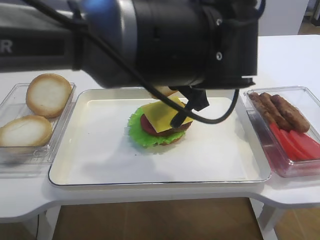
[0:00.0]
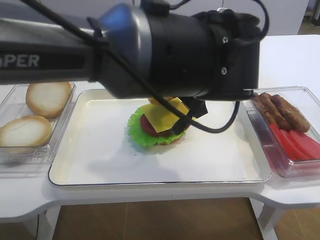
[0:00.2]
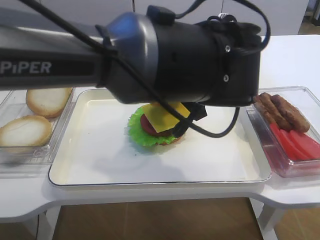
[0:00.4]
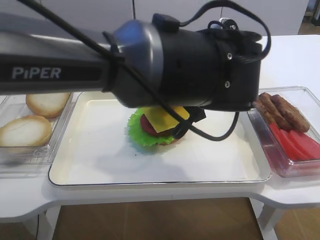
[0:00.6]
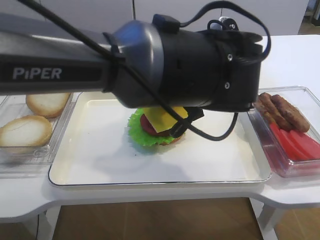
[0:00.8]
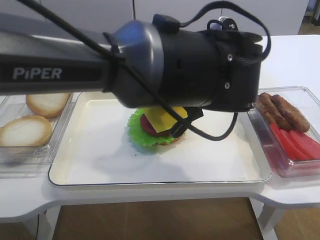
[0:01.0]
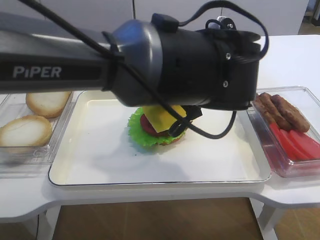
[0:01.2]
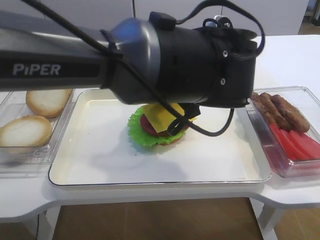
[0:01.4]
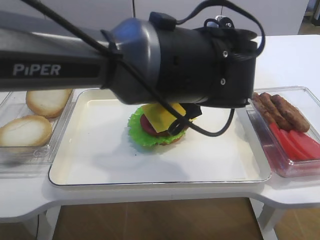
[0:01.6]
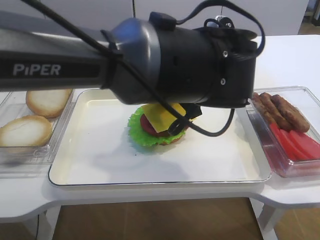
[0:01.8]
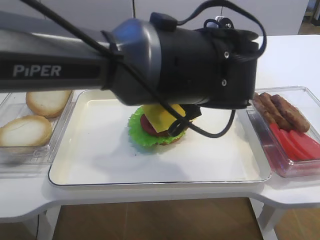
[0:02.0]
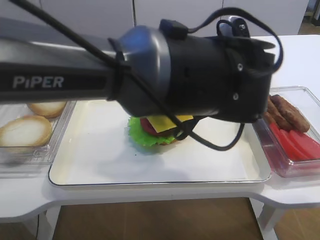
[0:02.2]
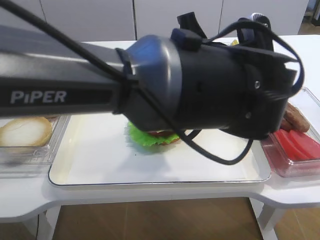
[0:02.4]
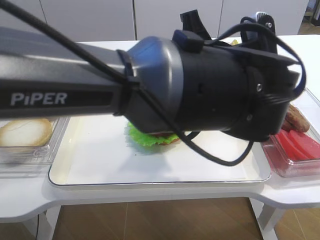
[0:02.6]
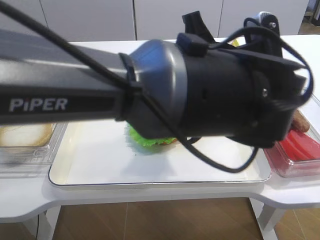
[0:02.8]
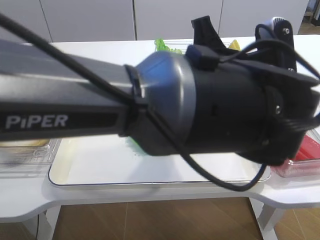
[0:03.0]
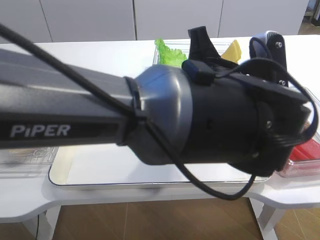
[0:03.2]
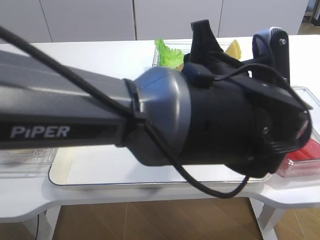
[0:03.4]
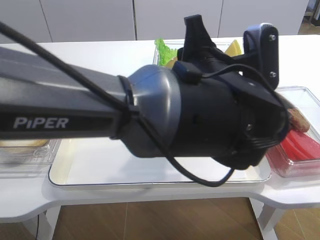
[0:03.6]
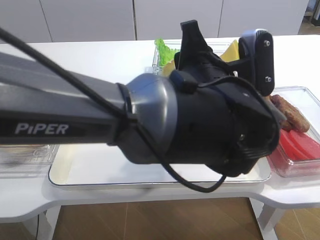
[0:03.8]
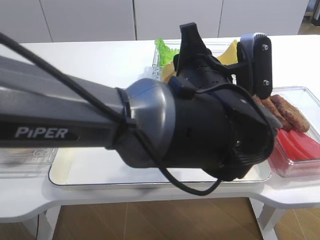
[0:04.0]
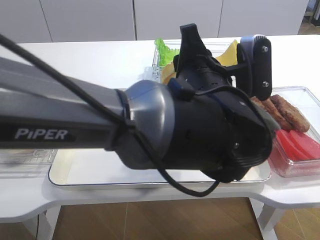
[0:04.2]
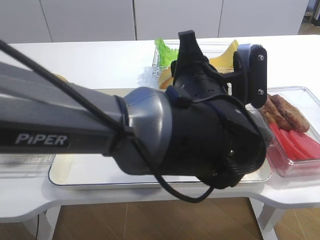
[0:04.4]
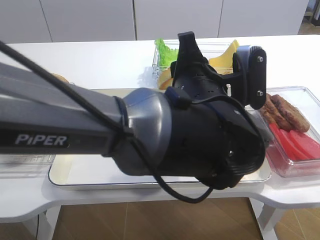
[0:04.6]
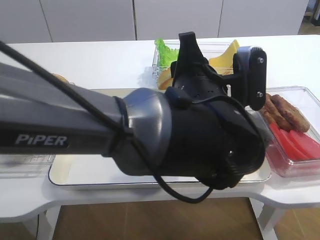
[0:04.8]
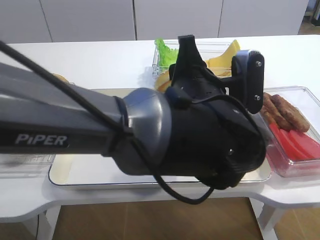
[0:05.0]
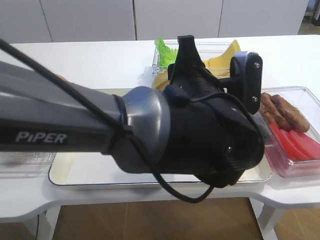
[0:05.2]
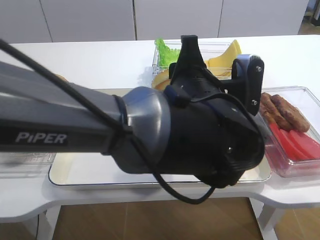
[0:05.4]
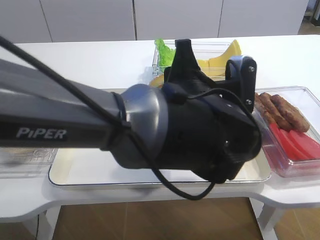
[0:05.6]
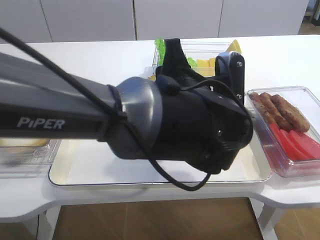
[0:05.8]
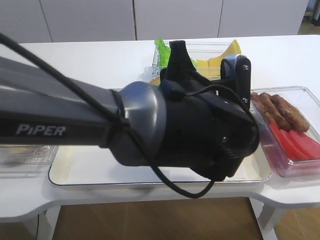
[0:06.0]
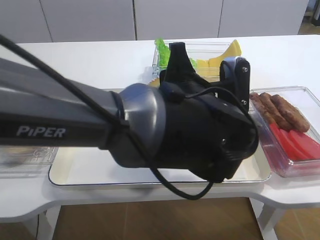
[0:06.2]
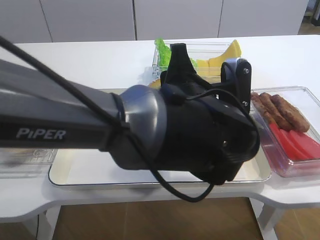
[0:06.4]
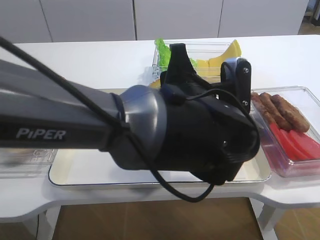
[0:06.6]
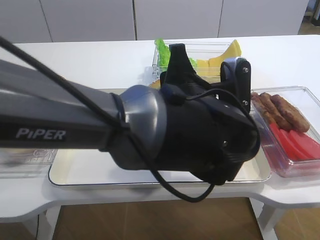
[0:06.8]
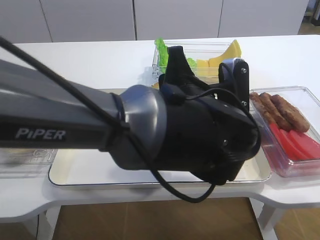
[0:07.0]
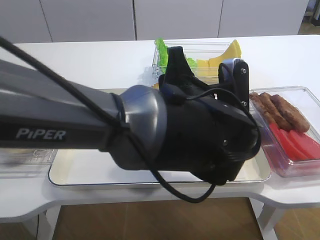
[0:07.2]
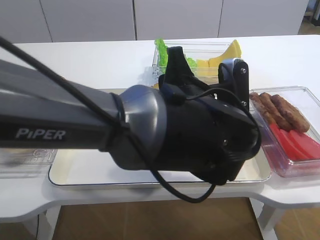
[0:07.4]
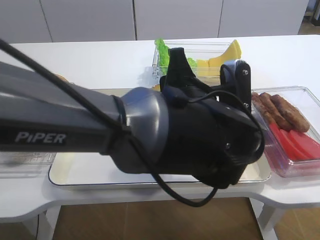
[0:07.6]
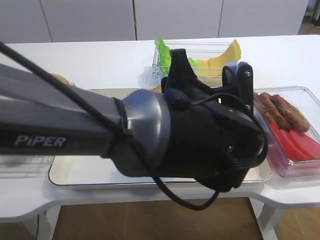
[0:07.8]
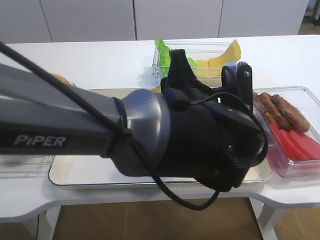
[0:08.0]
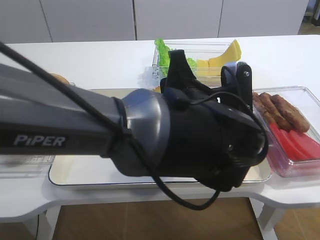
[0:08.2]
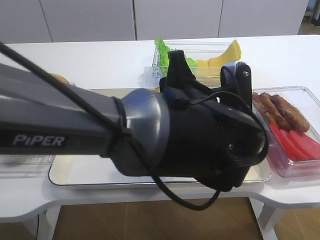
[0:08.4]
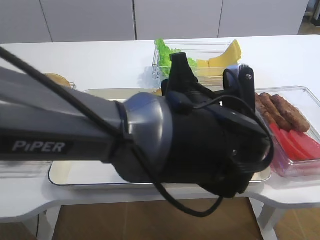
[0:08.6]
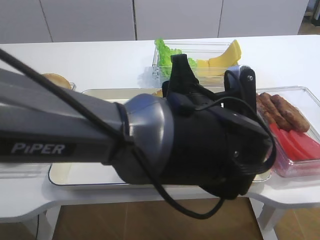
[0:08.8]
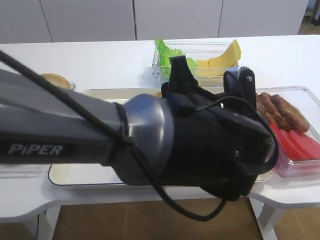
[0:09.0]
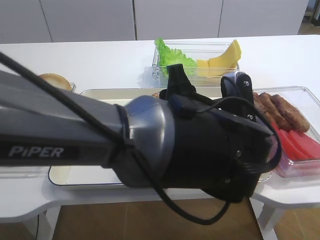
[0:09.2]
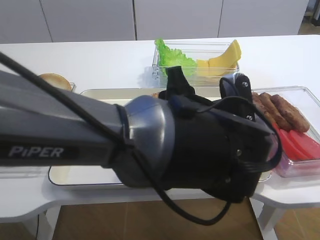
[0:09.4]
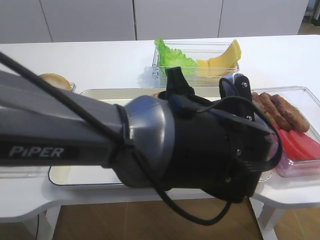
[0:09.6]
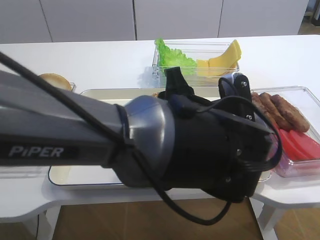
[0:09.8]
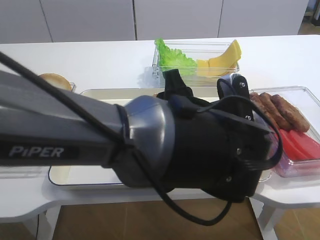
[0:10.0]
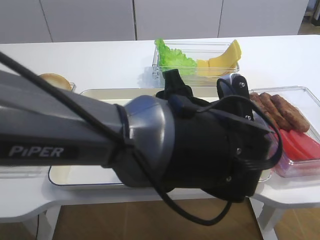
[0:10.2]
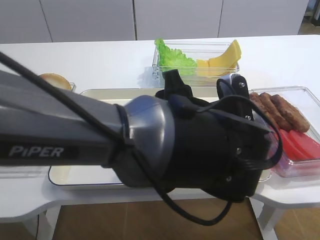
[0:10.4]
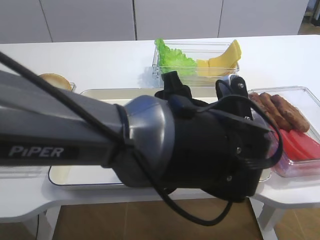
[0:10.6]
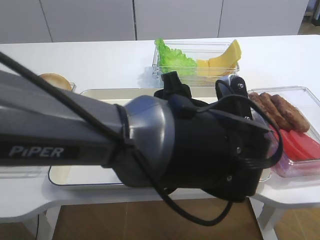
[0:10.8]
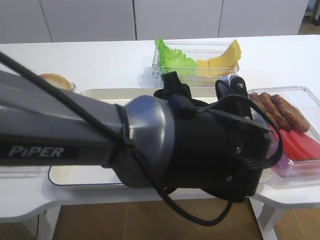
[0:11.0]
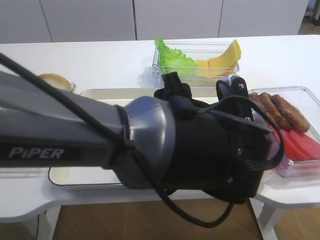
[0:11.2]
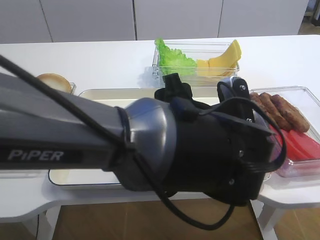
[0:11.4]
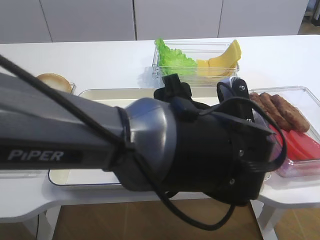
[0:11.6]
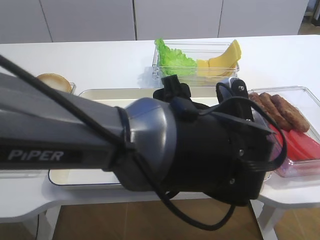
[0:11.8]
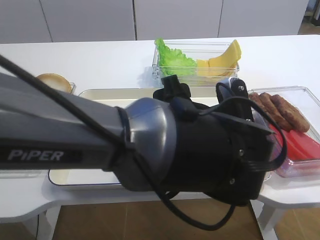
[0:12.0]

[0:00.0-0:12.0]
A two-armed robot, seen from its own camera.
0:01.6 to 0:03.0: The left gripper moves approximately 5 cm.
0:06.0 to 0:07.6: Both grippers stay put.
0:07.6 to 0:09.0: Both grippers stay put.
0:09.0 to 0:10.4: The left gripper opens its fingers.
0:10.4 to 0:12.0: The left gripper opens up.

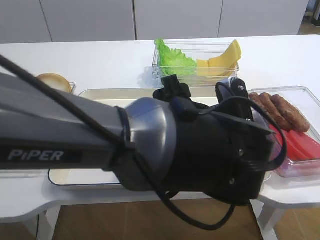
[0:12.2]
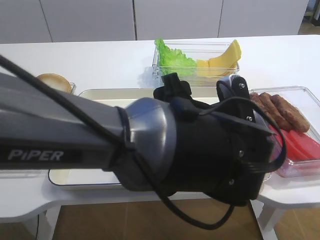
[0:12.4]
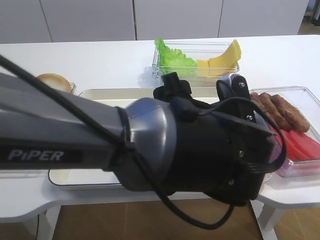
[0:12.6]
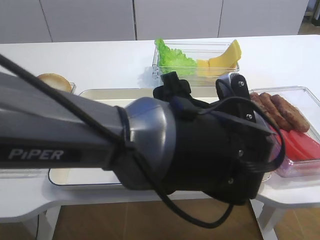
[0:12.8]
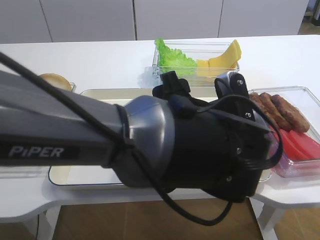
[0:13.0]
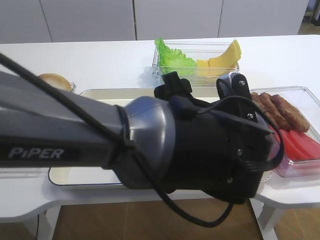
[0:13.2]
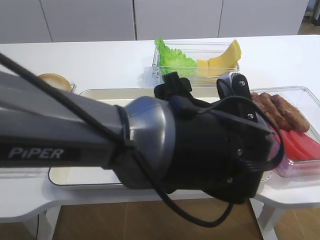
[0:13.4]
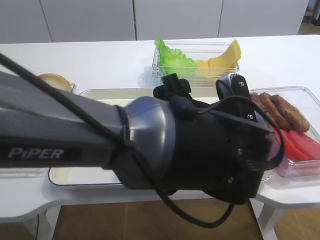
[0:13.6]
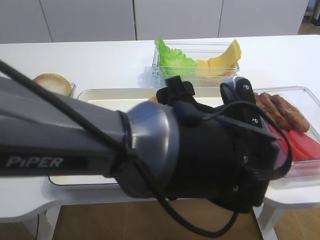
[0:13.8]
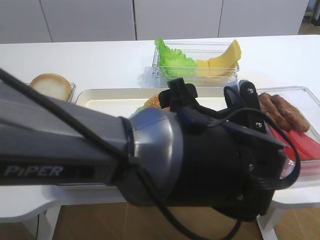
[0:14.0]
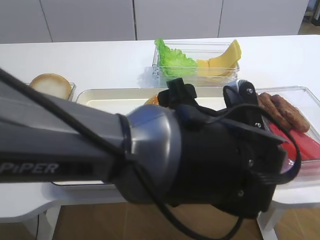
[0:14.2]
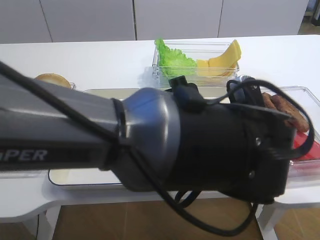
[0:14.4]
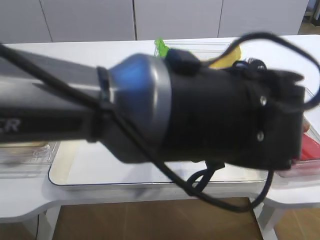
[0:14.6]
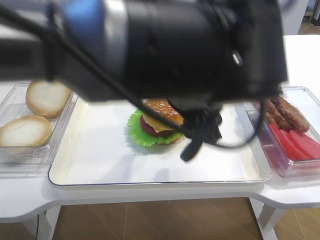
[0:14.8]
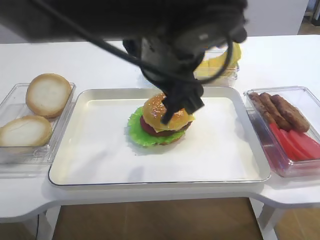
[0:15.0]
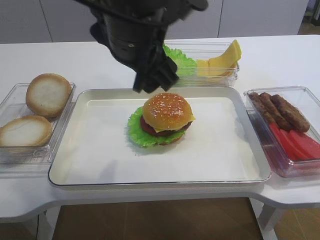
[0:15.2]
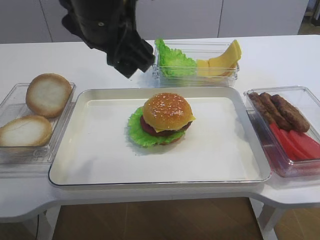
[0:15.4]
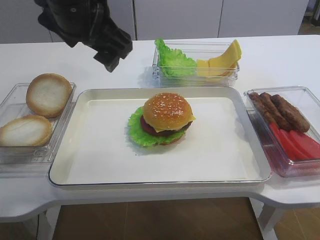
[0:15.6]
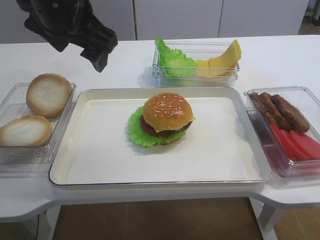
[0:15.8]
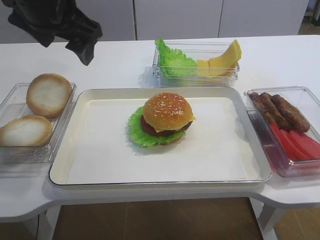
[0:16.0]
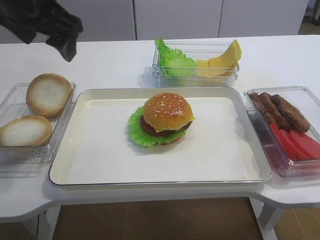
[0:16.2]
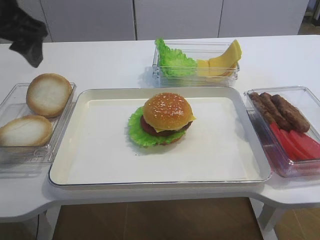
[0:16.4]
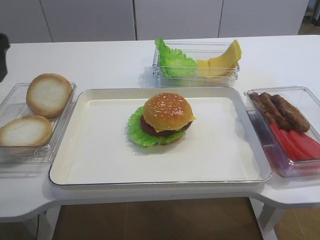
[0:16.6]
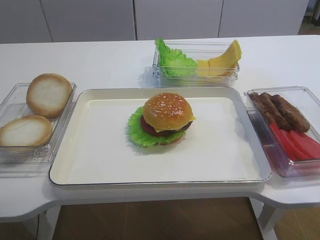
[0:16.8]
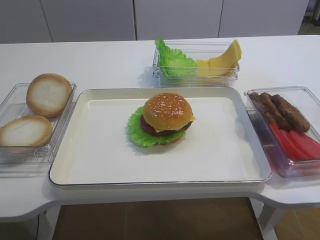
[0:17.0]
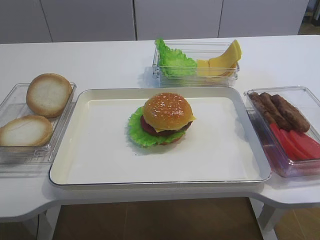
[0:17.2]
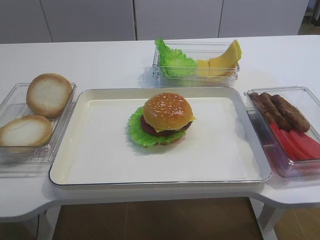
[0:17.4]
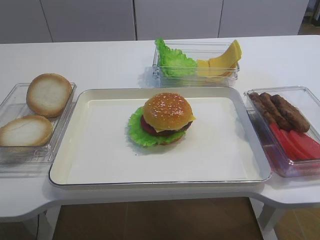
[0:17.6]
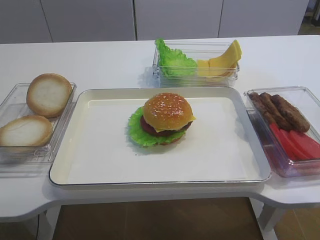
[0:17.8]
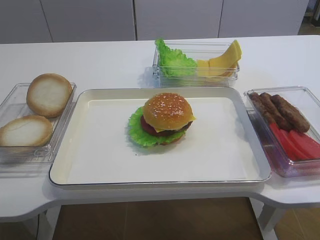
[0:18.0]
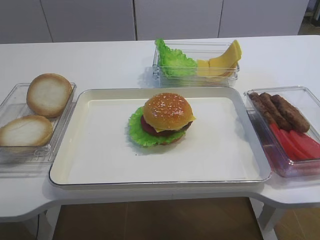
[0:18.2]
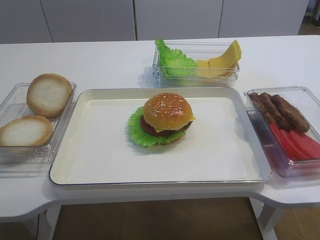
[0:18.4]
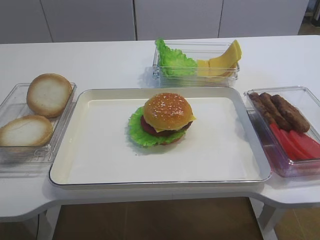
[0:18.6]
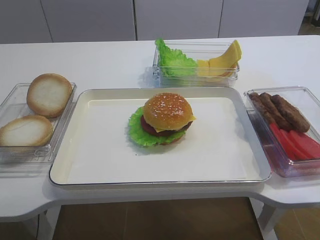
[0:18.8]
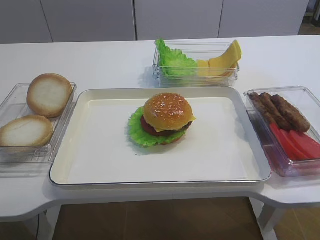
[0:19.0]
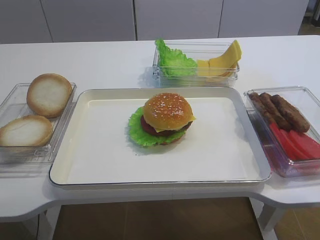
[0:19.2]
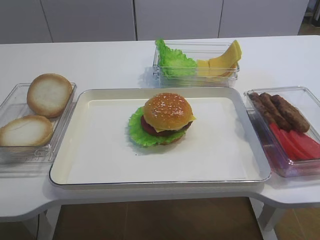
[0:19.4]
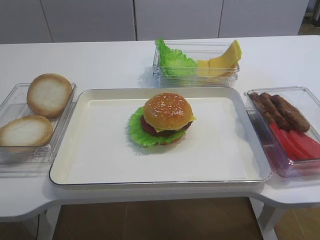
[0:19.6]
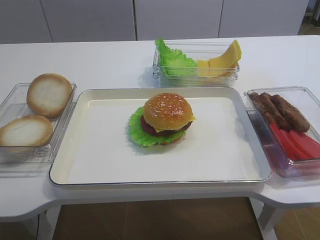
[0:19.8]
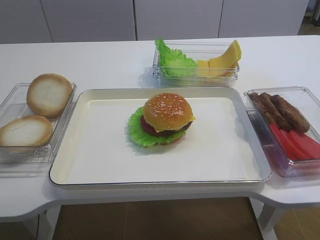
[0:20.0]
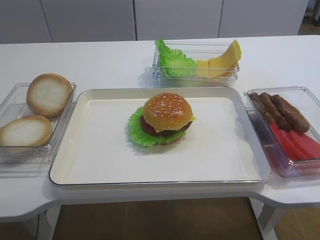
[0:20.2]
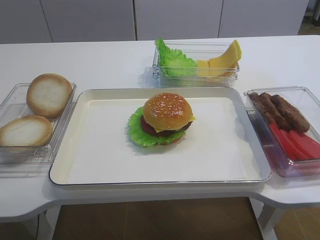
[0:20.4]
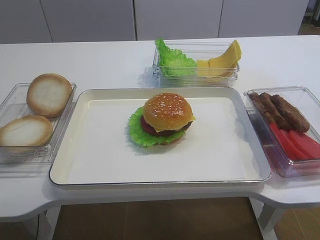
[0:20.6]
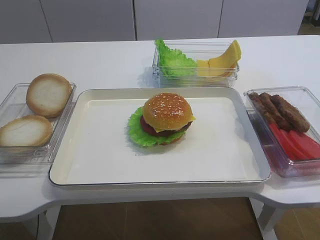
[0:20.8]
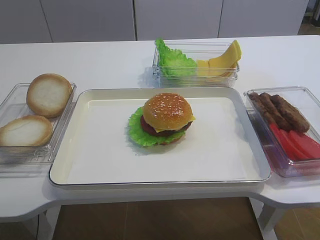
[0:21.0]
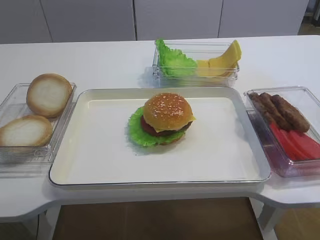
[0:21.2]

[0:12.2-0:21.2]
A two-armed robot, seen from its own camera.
Step, 0:12.2 to 0:14.8: Place the hamburger lid on the cheese slice with the left gripper.
0:12.2 to 0:13.8: Both grippers stay about where they are.
0:13.8 to 0:15.2: The left gripper travels upward and to the left by roughly 15 cm.
0:15.2 to 0:16.6: The left gripper shifts approximately 20 cm to the left.
0:19.8 to 0:21.2: The two grippers keep their place.

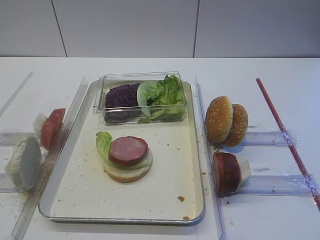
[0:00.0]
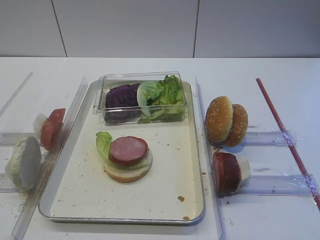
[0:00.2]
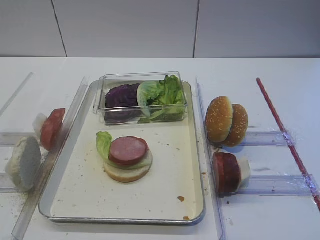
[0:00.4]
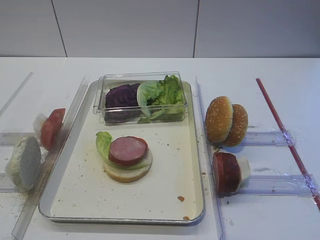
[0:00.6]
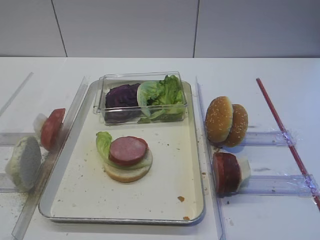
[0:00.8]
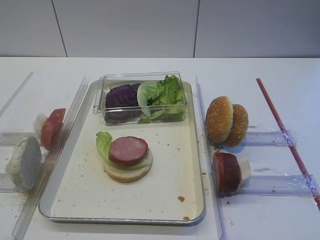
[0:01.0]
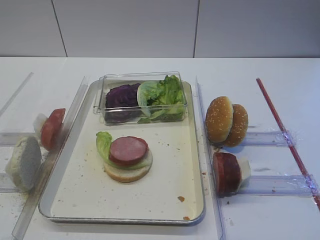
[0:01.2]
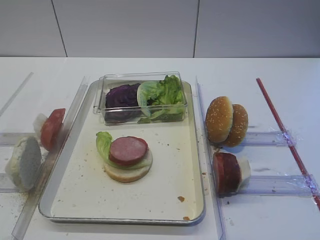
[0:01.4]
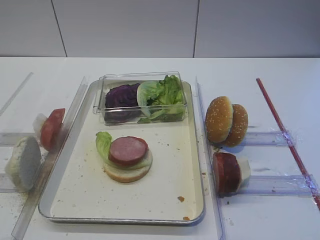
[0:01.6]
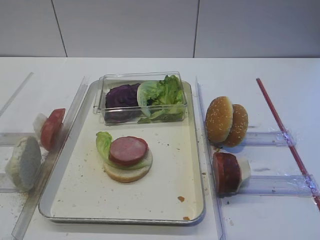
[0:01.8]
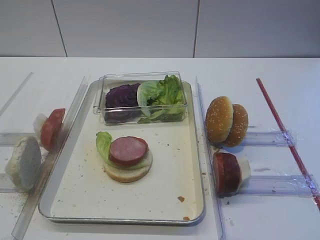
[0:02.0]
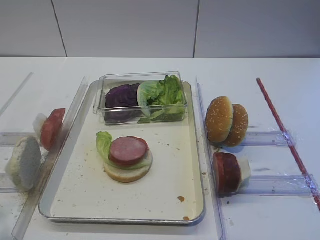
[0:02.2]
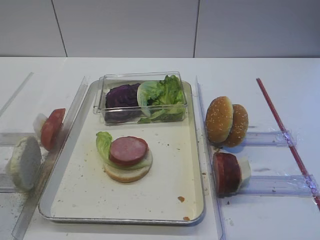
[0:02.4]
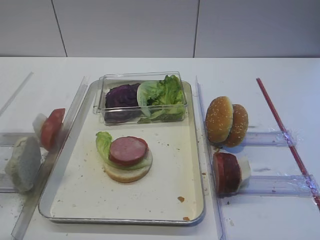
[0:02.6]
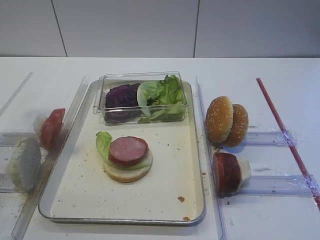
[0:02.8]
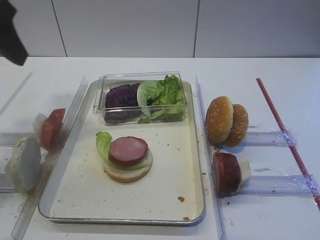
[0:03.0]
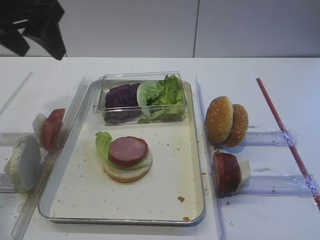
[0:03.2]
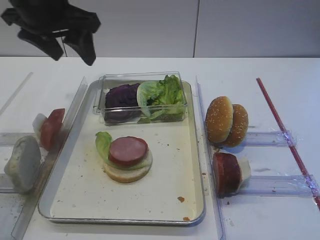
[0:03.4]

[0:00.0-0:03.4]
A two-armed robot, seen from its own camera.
0:01.6 to 0:03.4: The left gripper heads forward, covering about 35 cm, and opens.
